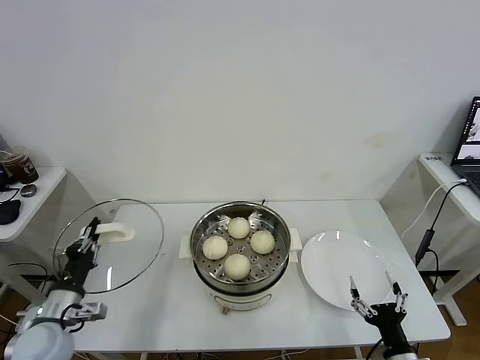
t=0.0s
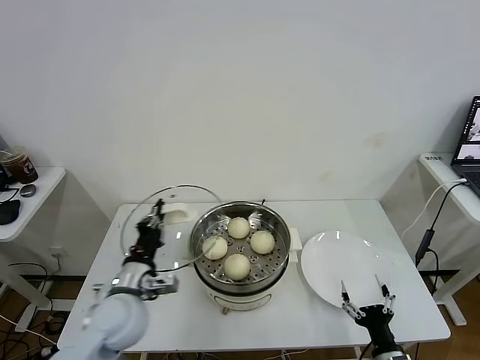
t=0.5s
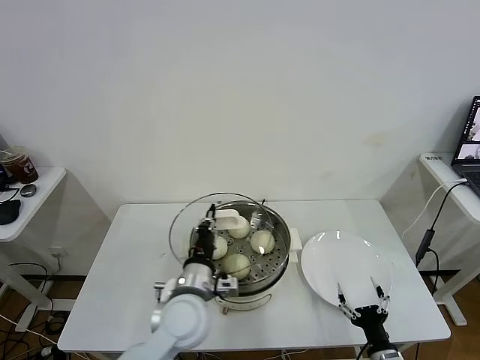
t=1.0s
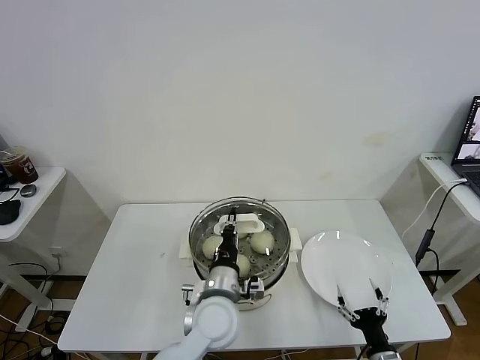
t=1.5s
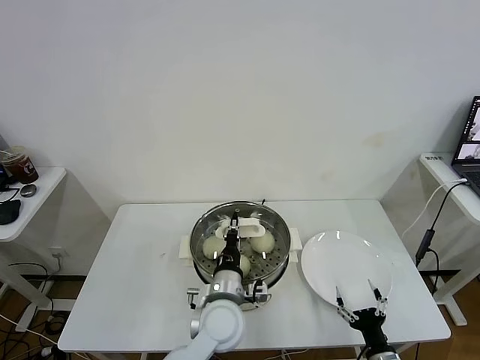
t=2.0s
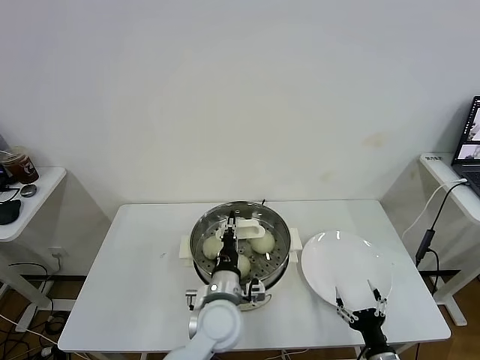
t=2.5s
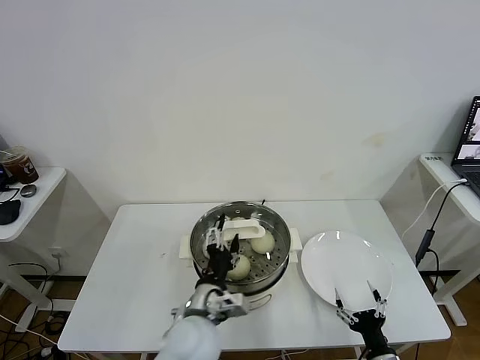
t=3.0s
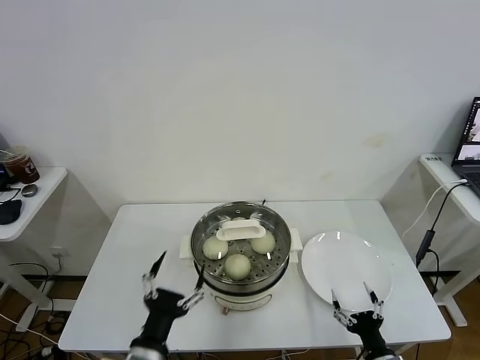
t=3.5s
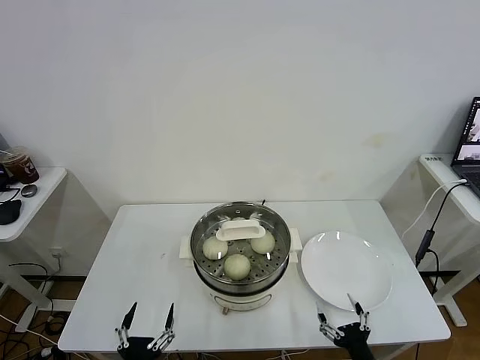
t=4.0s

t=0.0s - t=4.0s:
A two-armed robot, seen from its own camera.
Task of the whole recording: take steamed baozi put them in steamer.
Step, t=0.0s - t=3.0s: Place the pot lid on the steamer with left gripper.
t=0.0s - t=2.0s: The left gripper shifts roughly 35 cm to the right; the right gripper shifts roughly 5 cm downward.
t=2.0s - t=4.0s: The left gripper heads backward and to the left, covering some 30 cm, and opens up.
